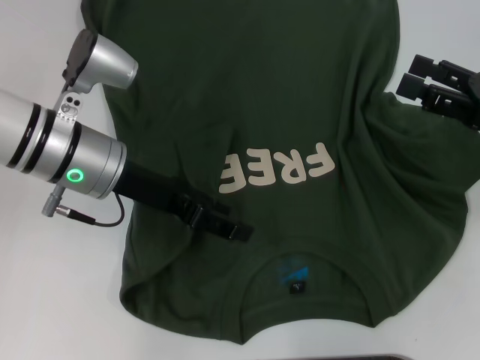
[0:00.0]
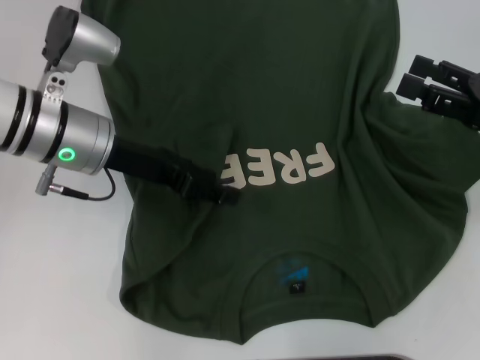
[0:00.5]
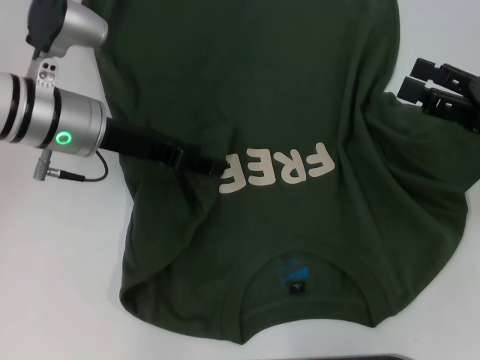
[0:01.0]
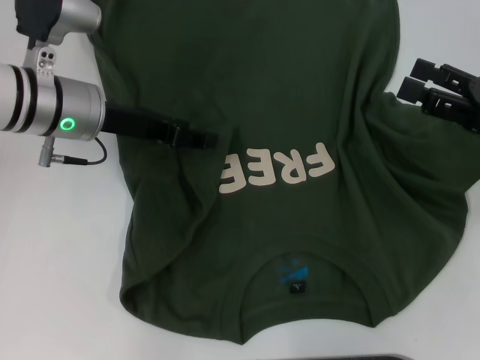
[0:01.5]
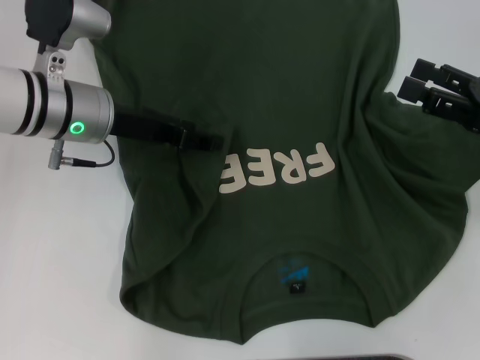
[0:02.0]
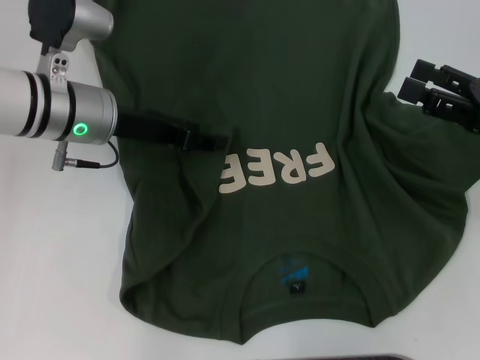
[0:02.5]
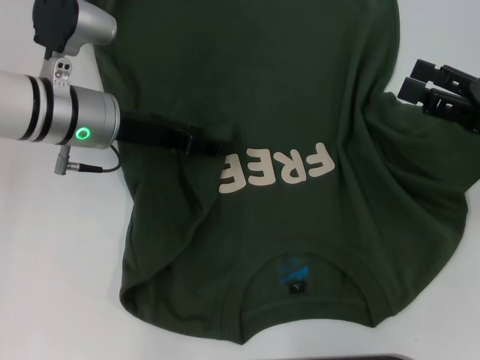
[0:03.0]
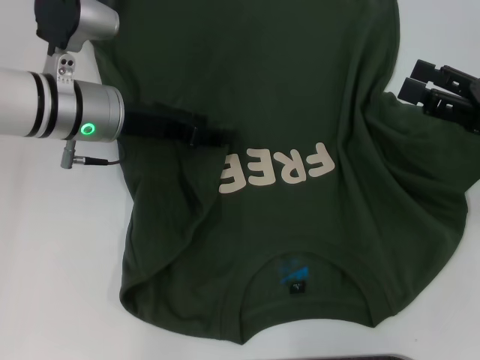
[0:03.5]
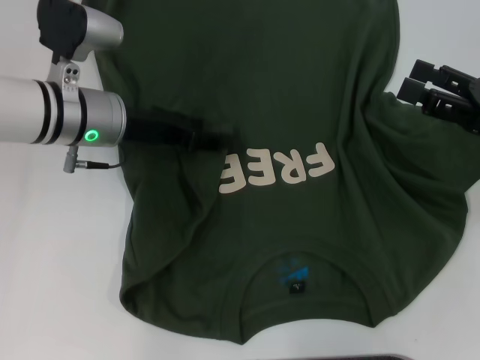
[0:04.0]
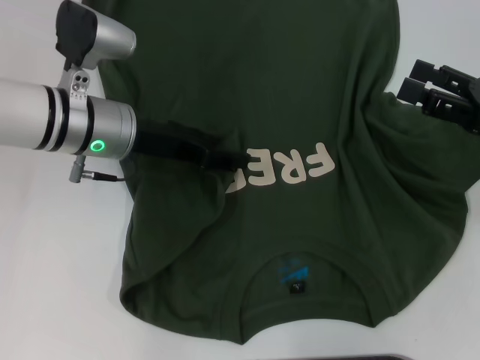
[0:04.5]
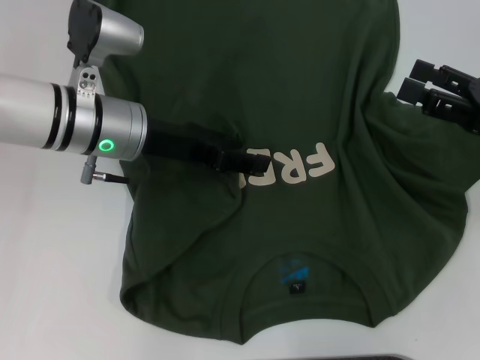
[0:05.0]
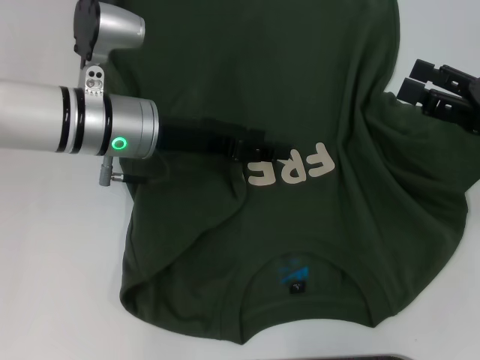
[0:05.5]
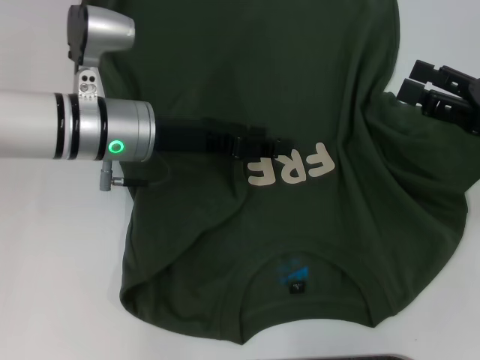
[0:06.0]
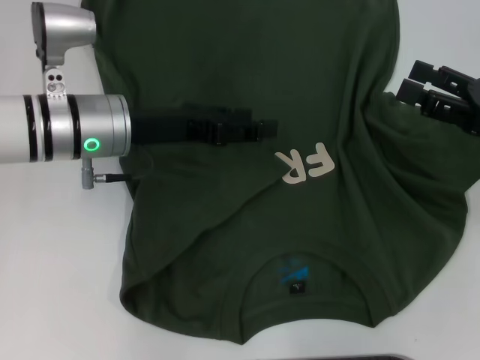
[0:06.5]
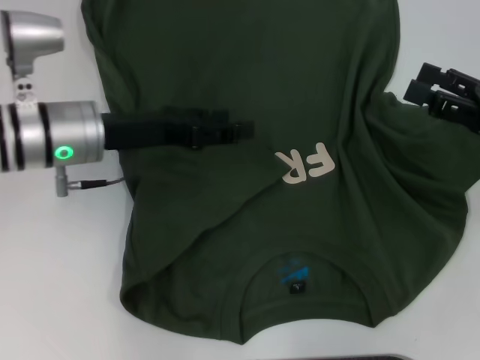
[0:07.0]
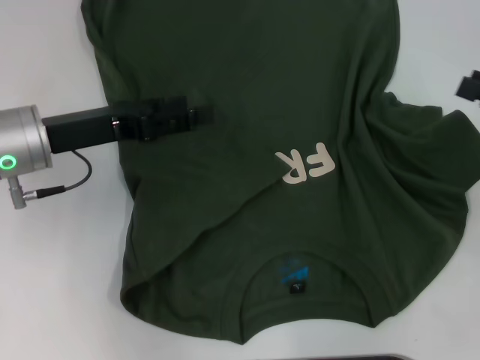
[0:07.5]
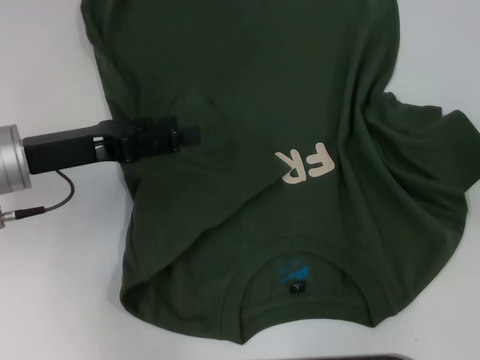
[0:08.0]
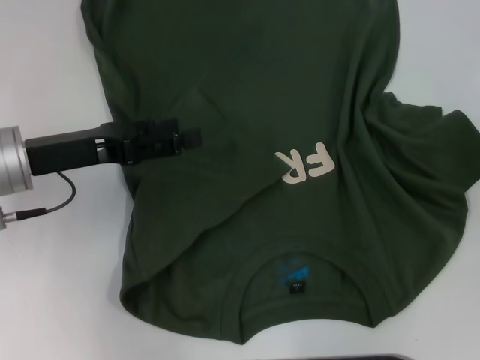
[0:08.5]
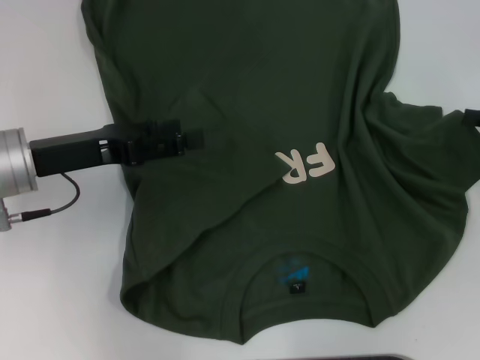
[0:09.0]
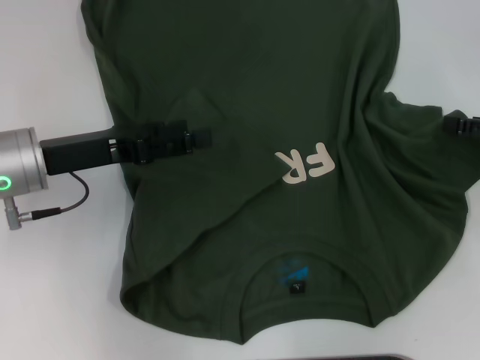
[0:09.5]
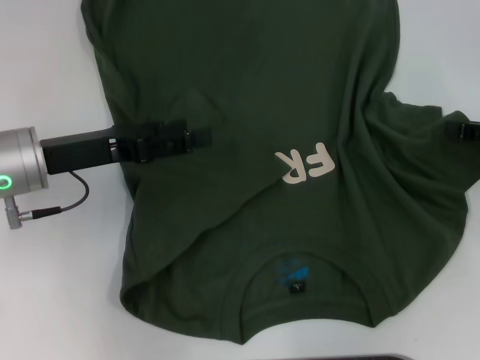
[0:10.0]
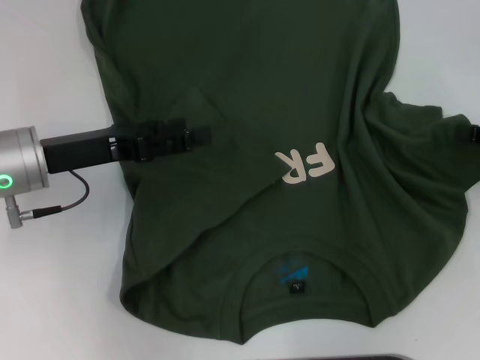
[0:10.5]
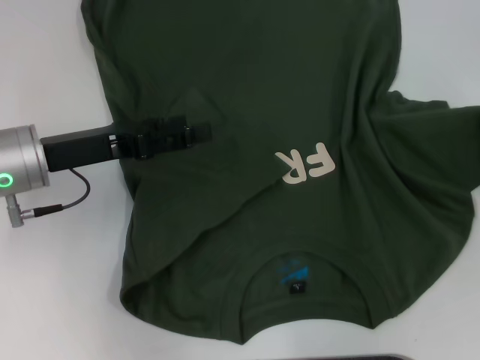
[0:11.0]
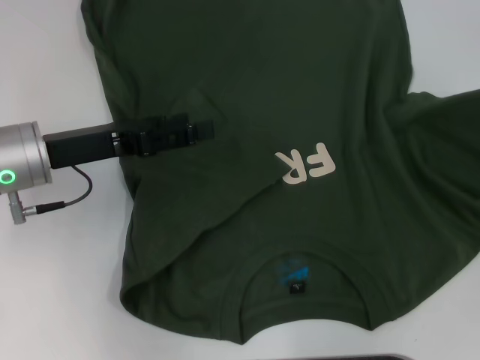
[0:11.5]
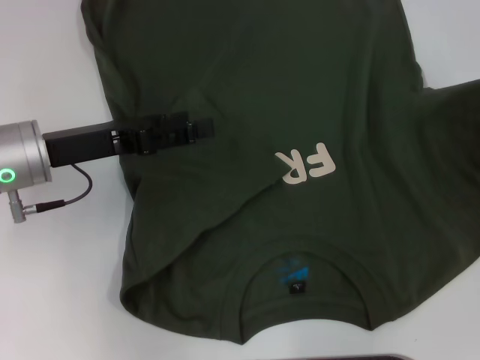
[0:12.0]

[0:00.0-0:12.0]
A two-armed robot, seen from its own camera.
0:02.0 to 0:04.0: The grippers move only a little.
0:06.0 to 0:08.0: The left gripper heads to the left, covering some 10 cm, while the right gripper travels to the right by some 10 cm.
0:10.0 to 0:12.0: The right gripper ends up some 5 cm from where it was, and closes its fingers.

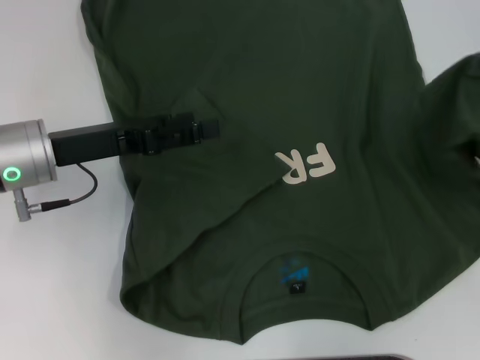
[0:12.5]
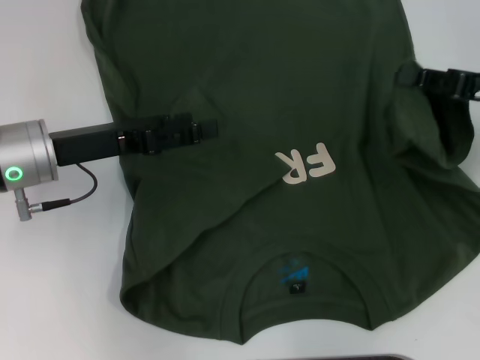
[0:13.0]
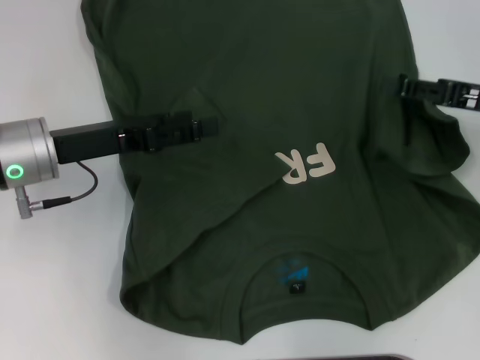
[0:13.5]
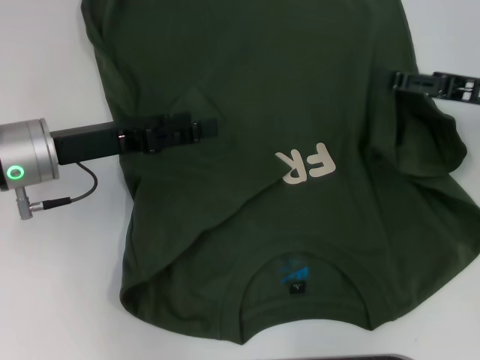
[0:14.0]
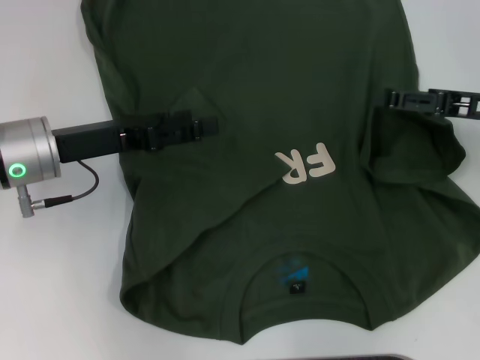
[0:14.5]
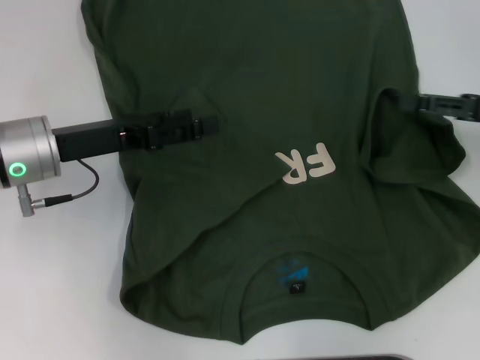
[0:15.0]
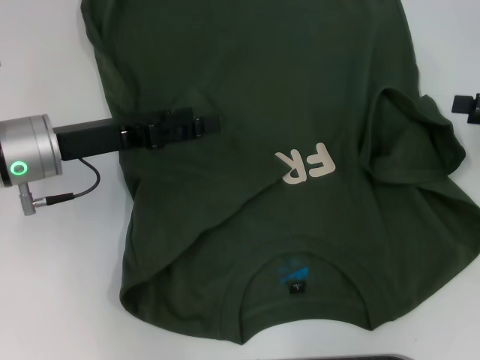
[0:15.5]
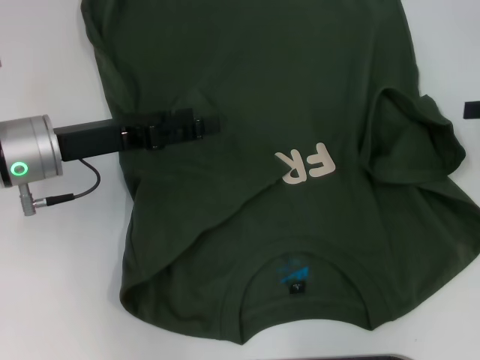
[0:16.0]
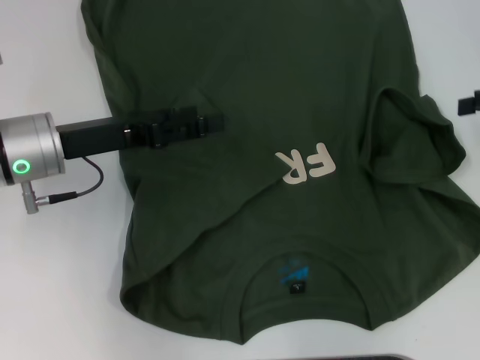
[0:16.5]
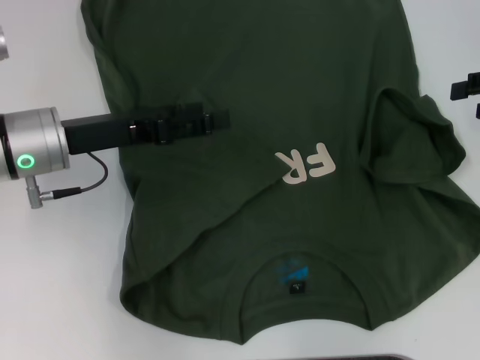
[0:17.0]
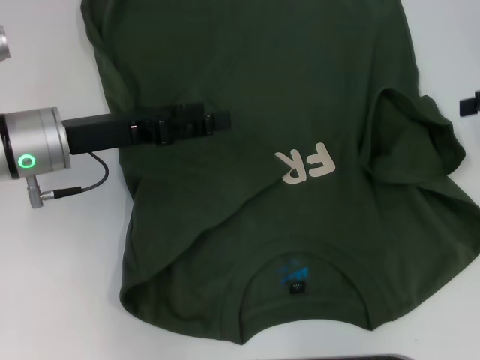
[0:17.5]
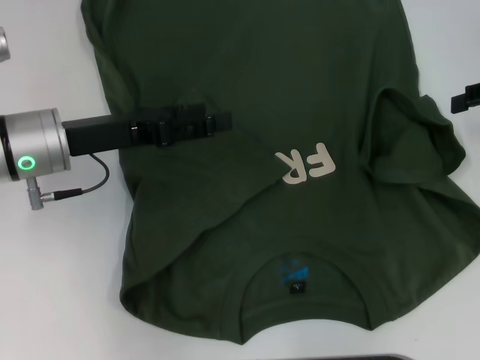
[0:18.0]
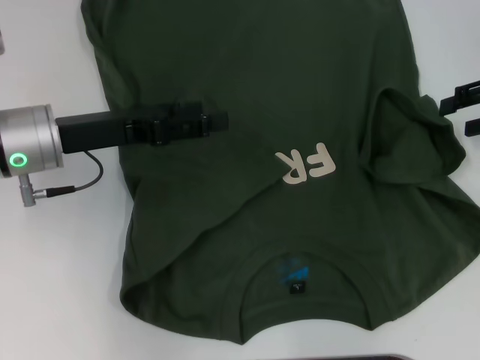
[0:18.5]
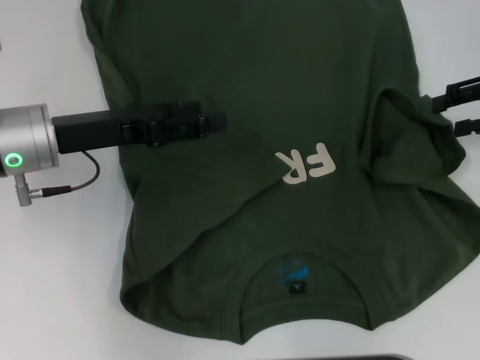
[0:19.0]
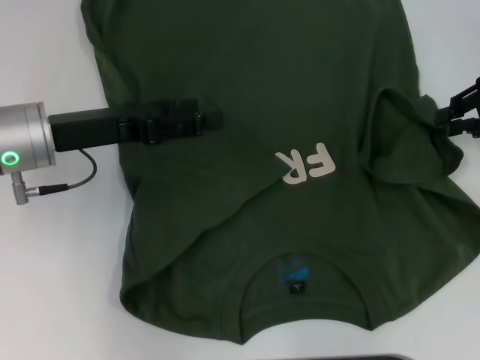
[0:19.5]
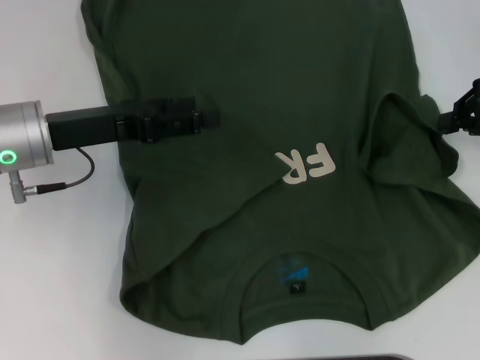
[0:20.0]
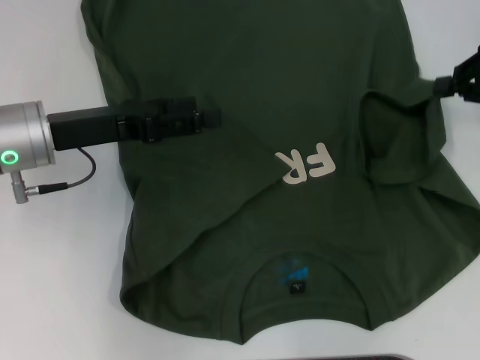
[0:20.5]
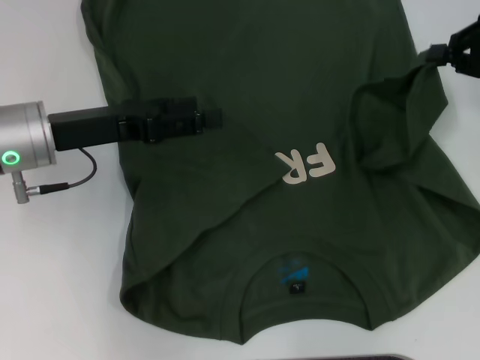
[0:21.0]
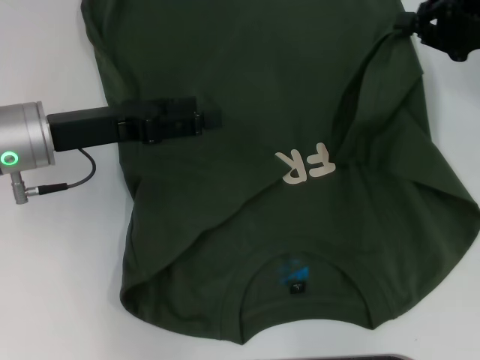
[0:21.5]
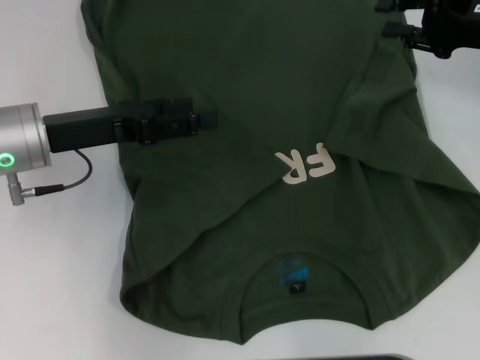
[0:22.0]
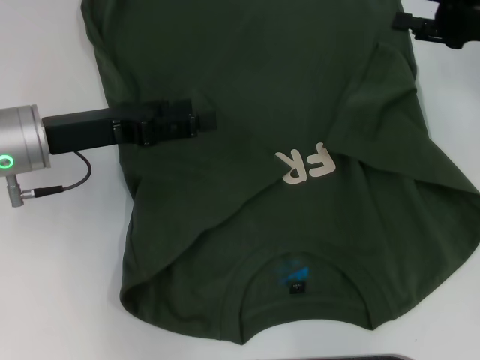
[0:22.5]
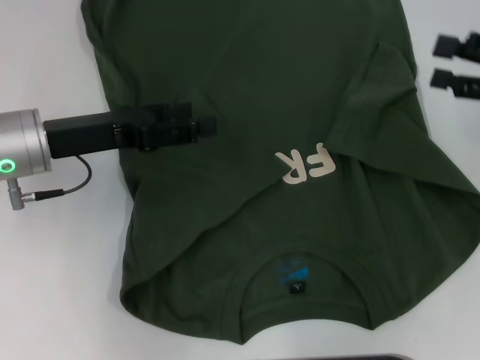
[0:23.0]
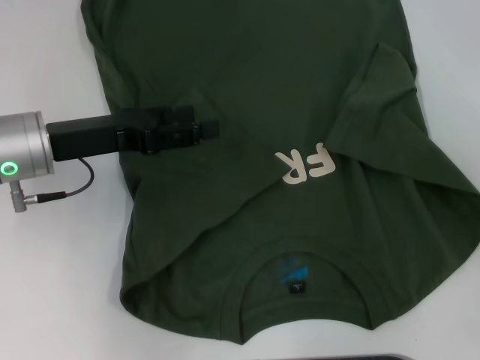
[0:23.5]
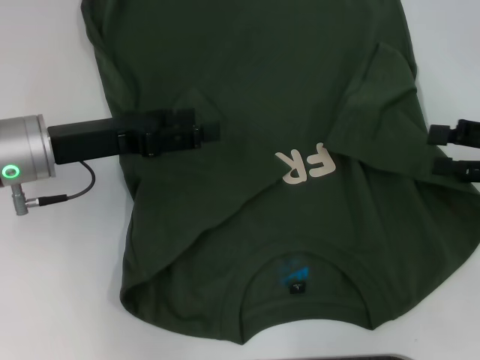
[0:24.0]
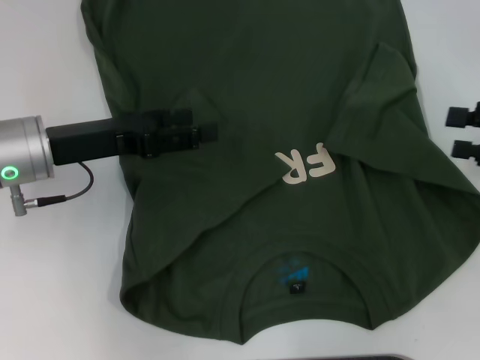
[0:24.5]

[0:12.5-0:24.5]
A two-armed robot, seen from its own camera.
Step, 0:12.5 to 0:14.5: Fold the bottom right sleeve with your right hand.
0:12.5 to 0:14.5: The right gripper is displaced to the left by about 5 cm, and opens.
0:14.5 to 0:16.5: The right gripper heads to the right, covering approximately 5 cm.
0:16.5 to 0:18.5: The grippers move only a little.
0:18.5 to 0:20.5: The right gripper closes up.
0:20.5 to 0:22.5: The right gripper opens.
0:22.5 to 0:24.5: The right gripper goes approximately 10 cm backward and to the right.

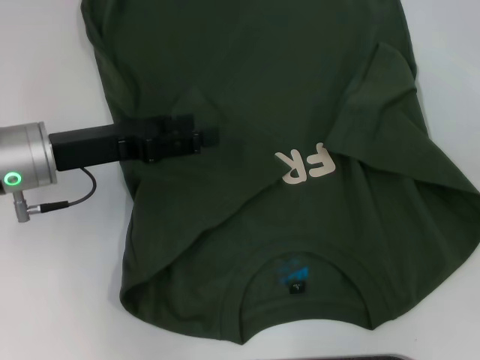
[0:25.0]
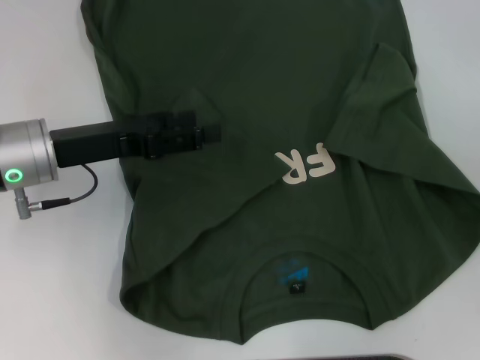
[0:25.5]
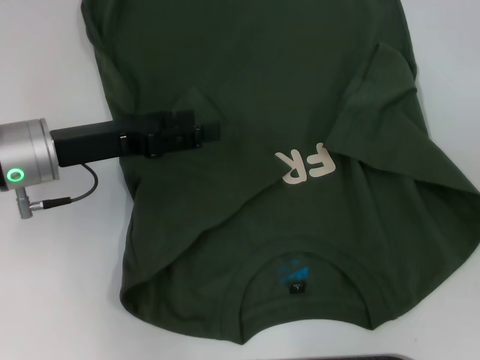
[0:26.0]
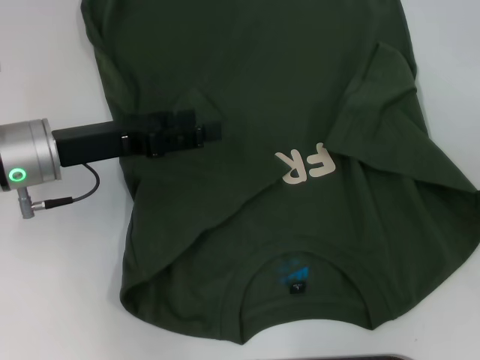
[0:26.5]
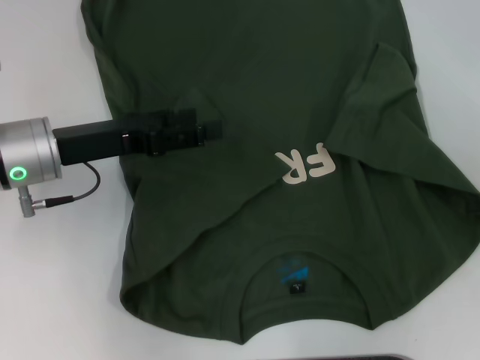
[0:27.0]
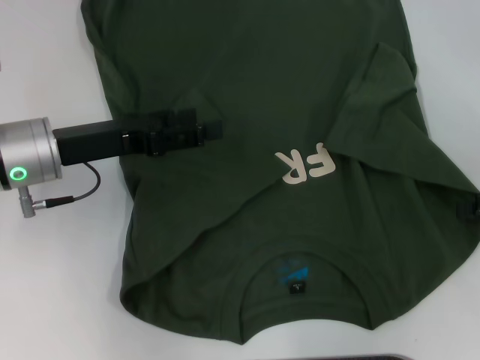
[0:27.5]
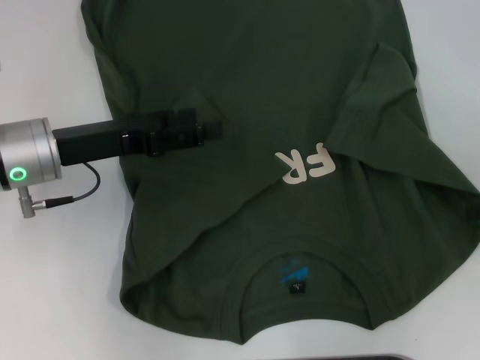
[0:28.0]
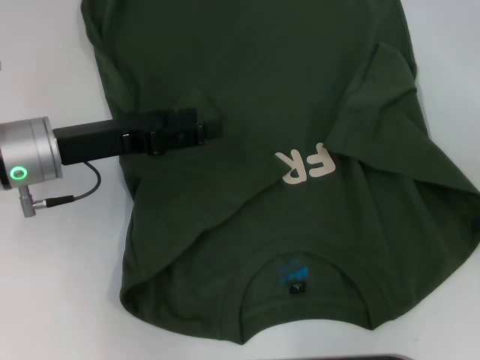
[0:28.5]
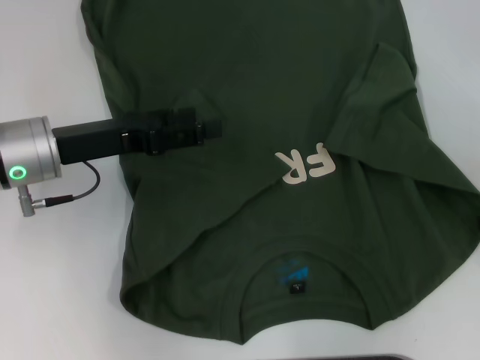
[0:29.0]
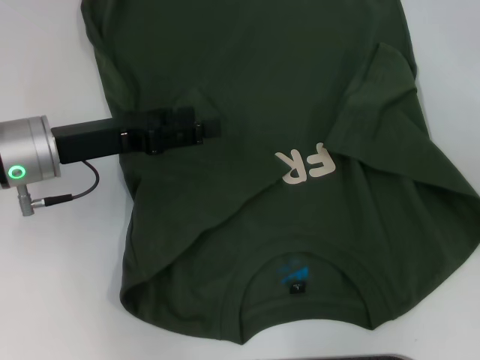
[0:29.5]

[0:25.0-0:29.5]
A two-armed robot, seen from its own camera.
0:25.0 to 0:27.0: The grippers move only a little.
